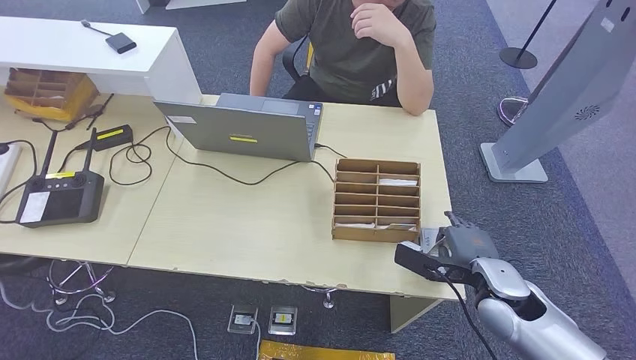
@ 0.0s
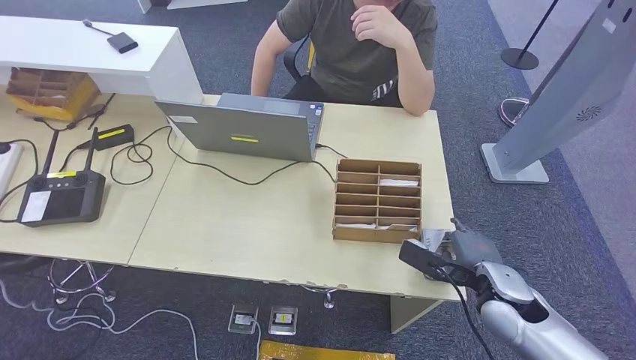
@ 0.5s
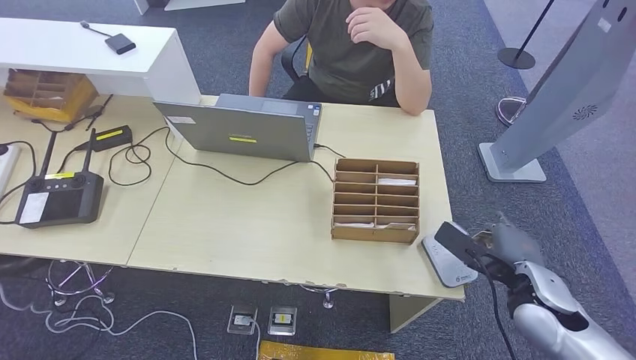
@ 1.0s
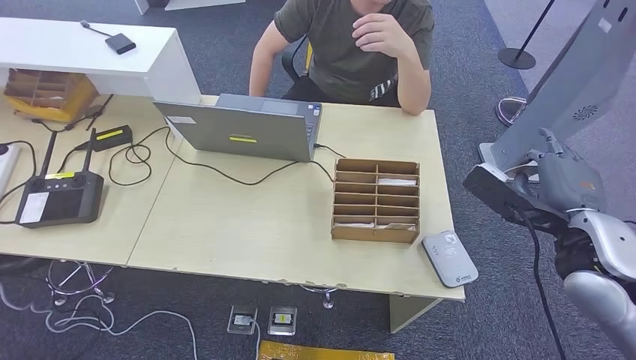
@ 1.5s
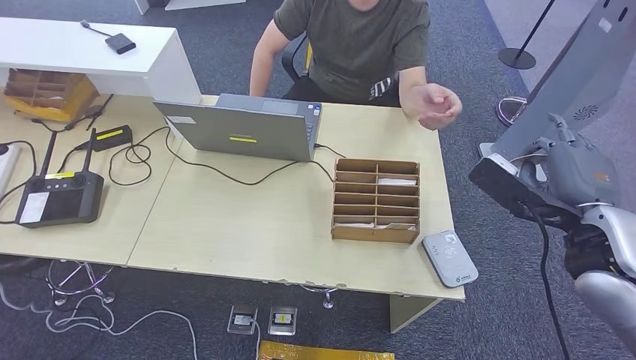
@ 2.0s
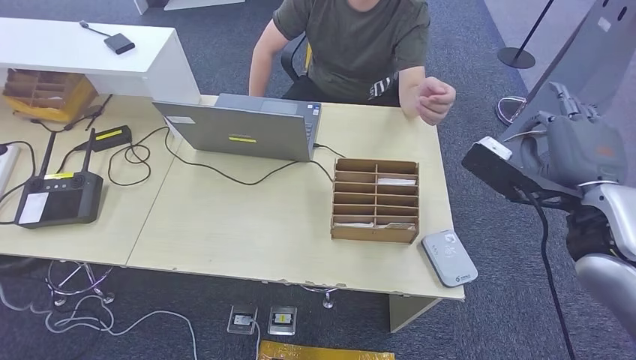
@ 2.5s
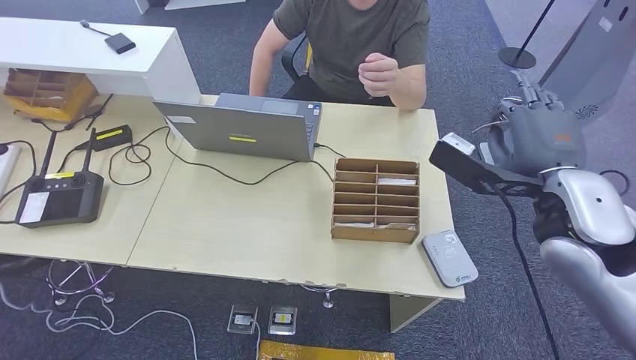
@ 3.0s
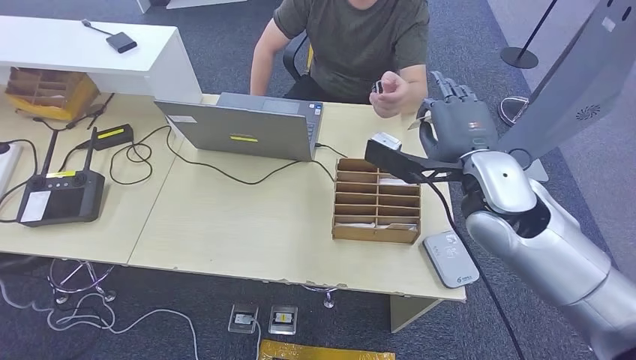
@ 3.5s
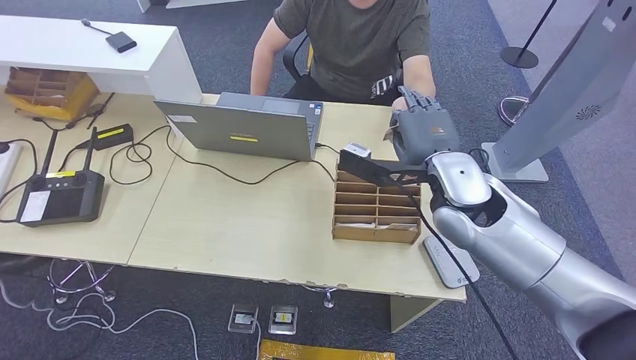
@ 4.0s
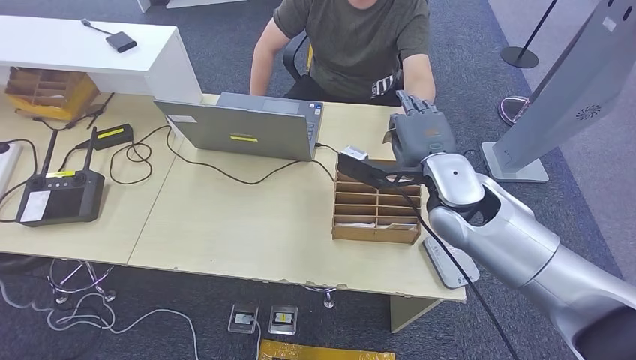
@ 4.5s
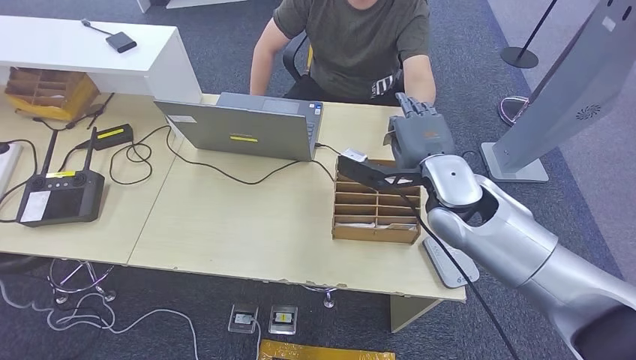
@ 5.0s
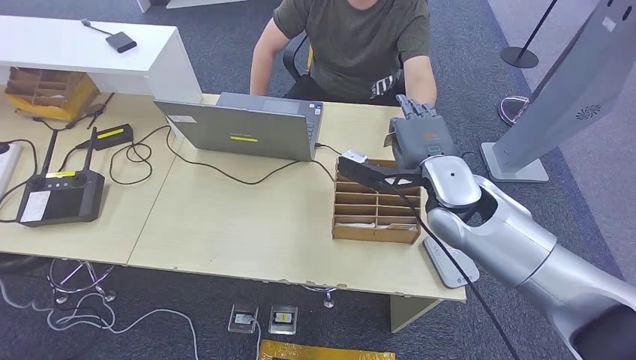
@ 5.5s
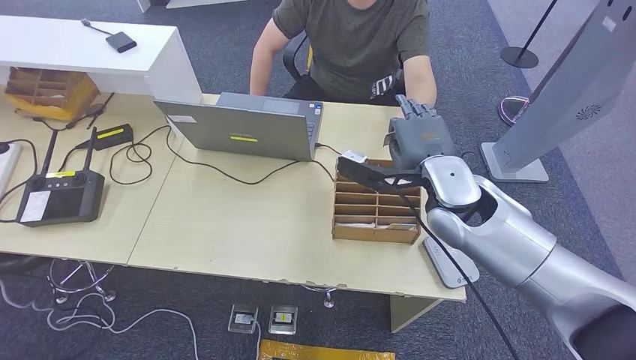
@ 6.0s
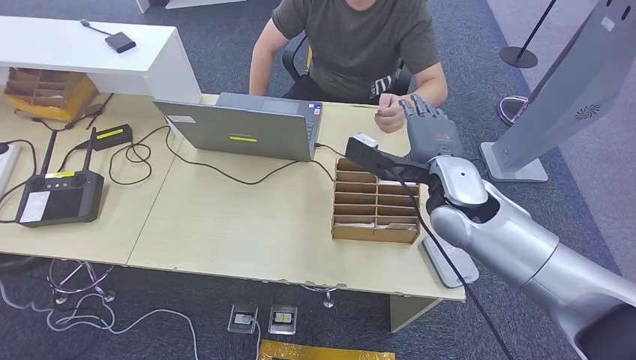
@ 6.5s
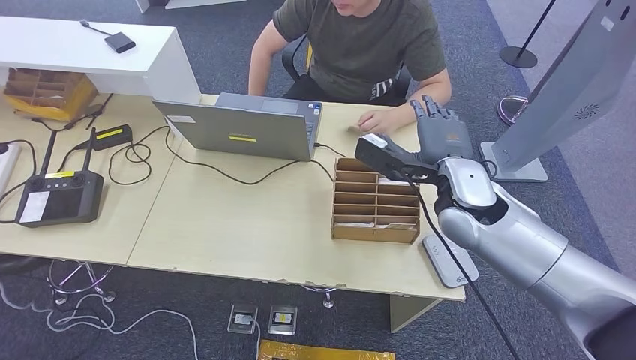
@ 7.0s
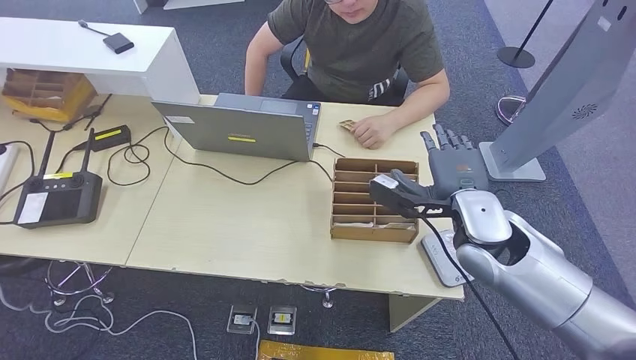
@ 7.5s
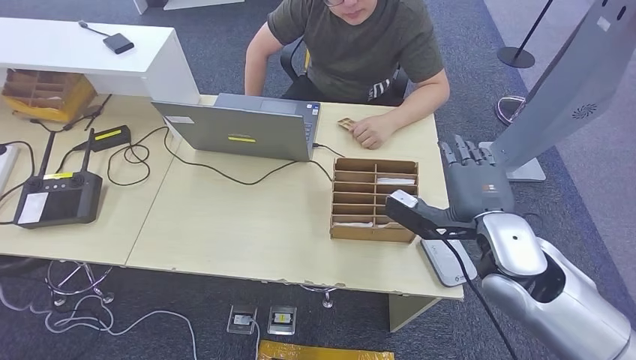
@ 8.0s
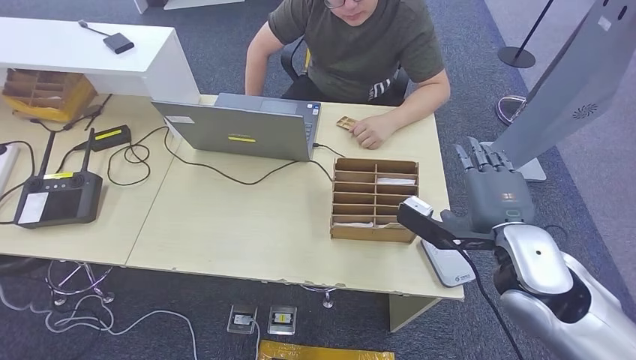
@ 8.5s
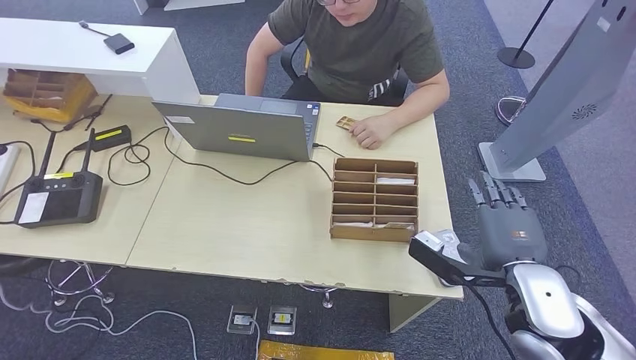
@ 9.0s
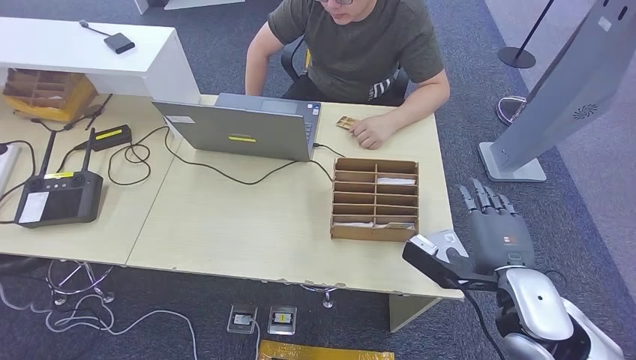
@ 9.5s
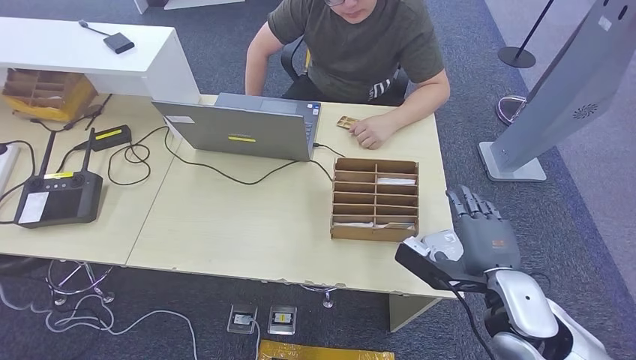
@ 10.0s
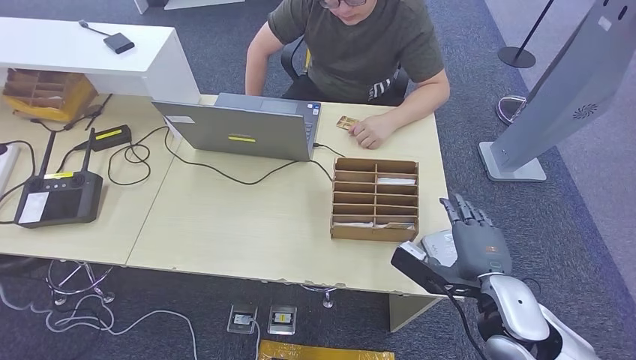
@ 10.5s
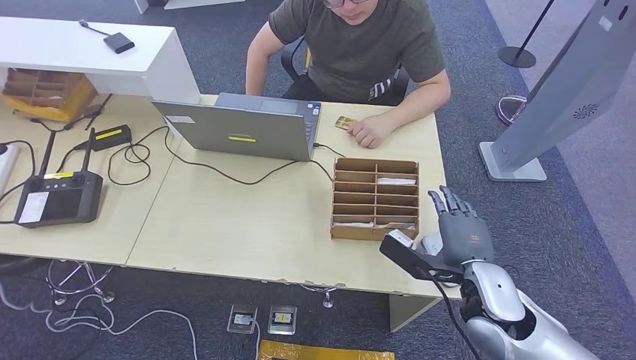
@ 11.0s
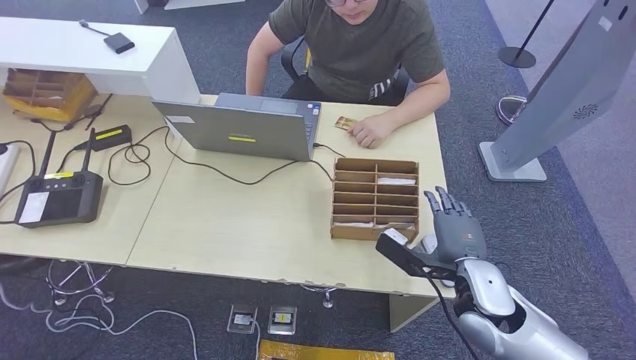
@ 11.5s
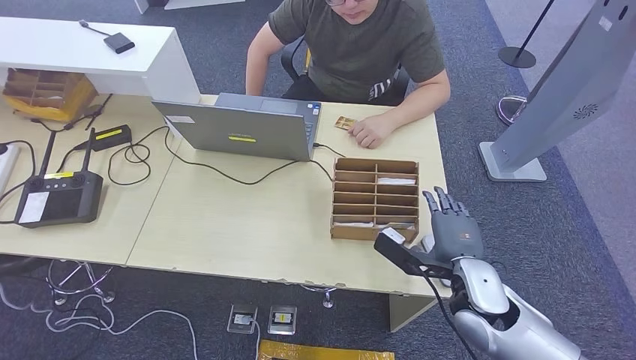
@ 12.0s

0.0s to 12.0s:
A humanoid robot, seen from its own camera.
Step, 0.0s to 7.0s: Hand the ID card to the person.
0.0s to 2.0s: The right hand goes about 15 cm upward.
2.0s to 4.0s: The right hand is displaced to the left and forward by roughly 20 cm.
4.0s to 6.0s: The hands move only a little.
6.0s to 8.0s: The right hand travels to the right and backward by some 10 cm.
8.0s to 10.0s: The right hand heads downward and backward, covering some 10 cm.
10.0s to 12.0s: The right hand ends up roughly 5 cm from where it was.

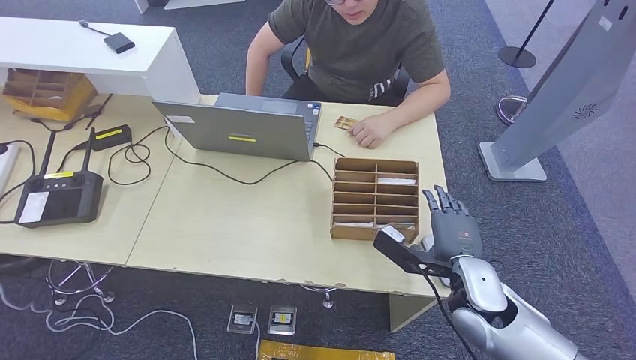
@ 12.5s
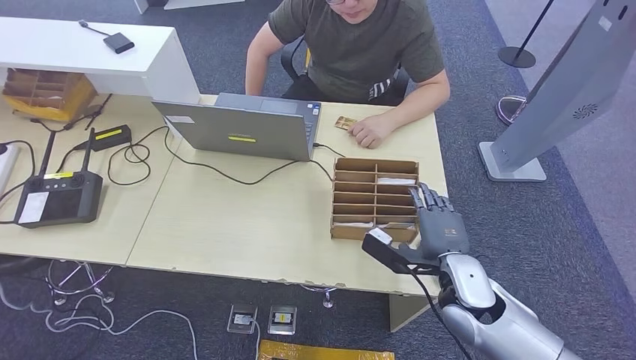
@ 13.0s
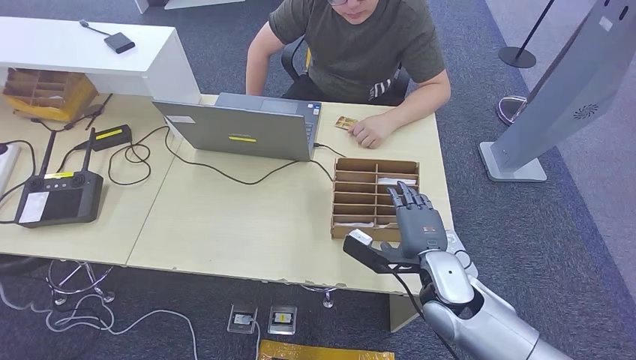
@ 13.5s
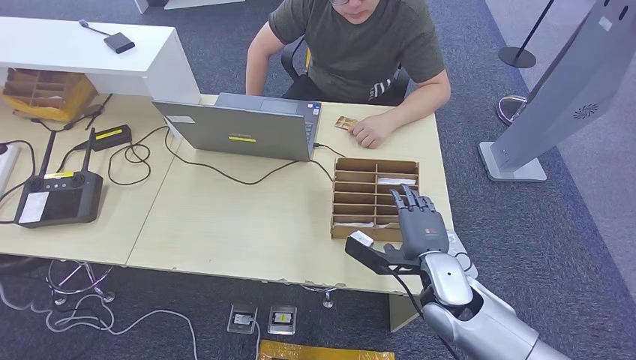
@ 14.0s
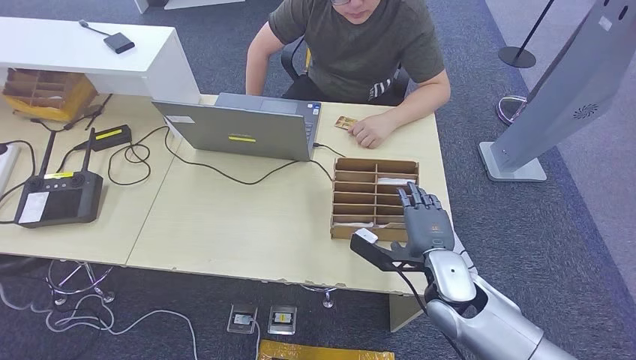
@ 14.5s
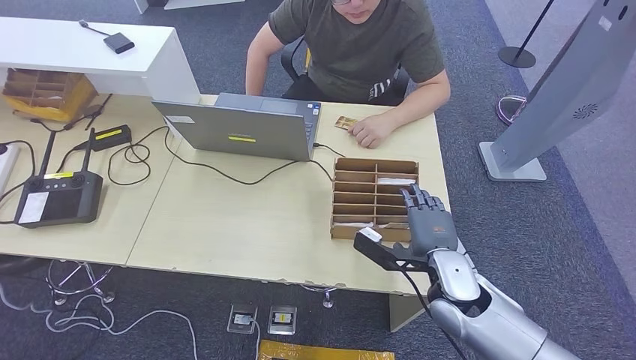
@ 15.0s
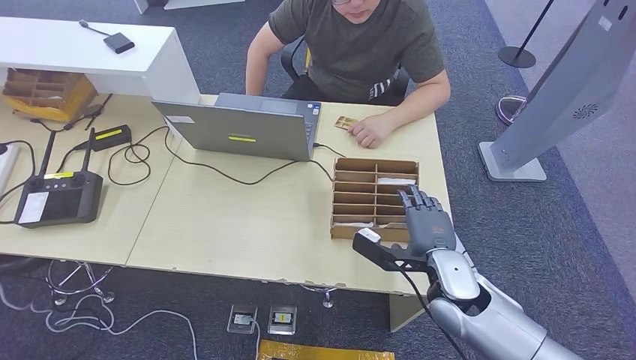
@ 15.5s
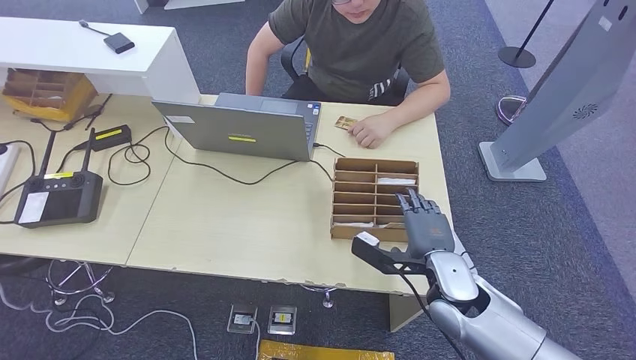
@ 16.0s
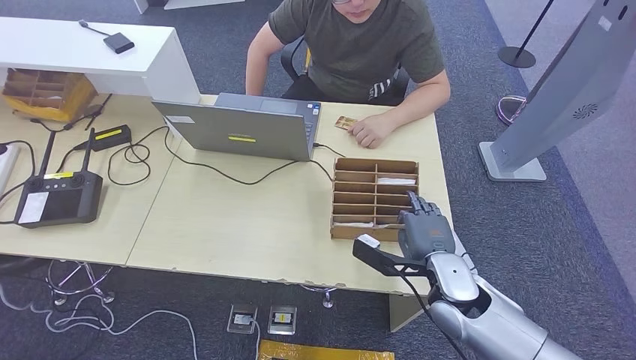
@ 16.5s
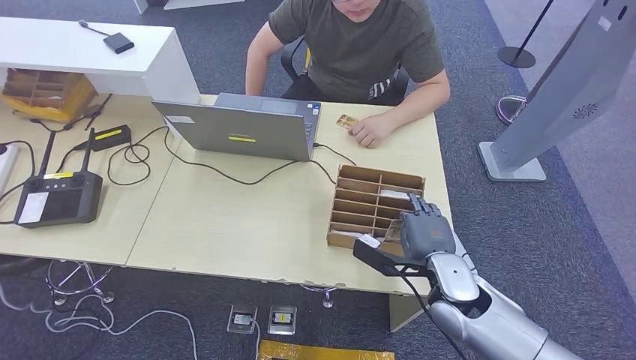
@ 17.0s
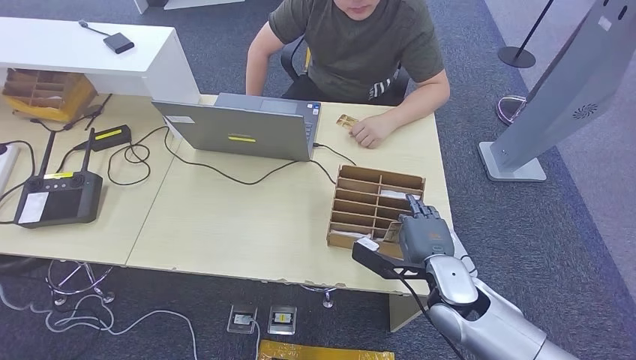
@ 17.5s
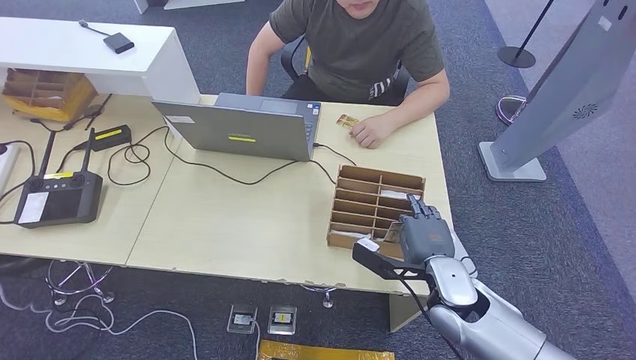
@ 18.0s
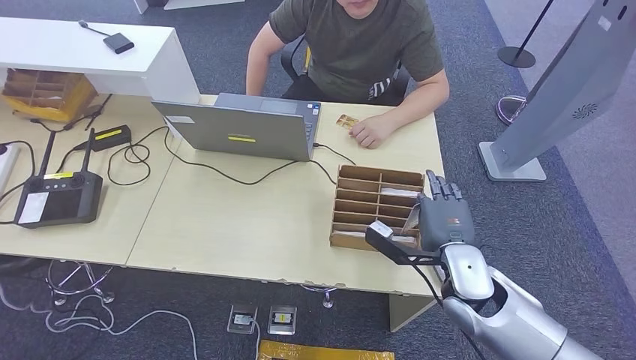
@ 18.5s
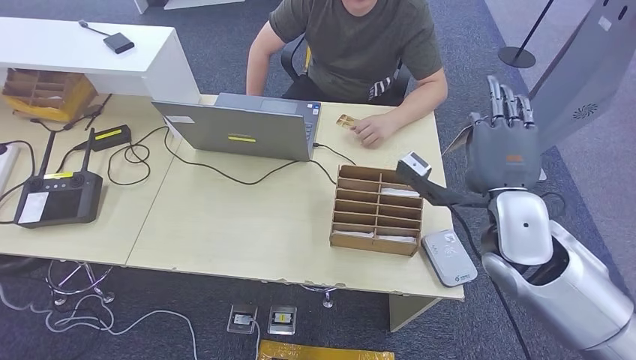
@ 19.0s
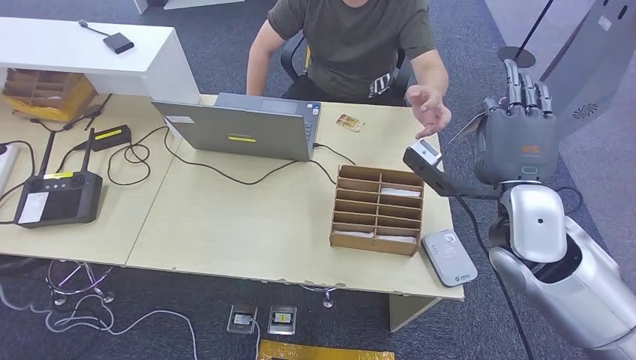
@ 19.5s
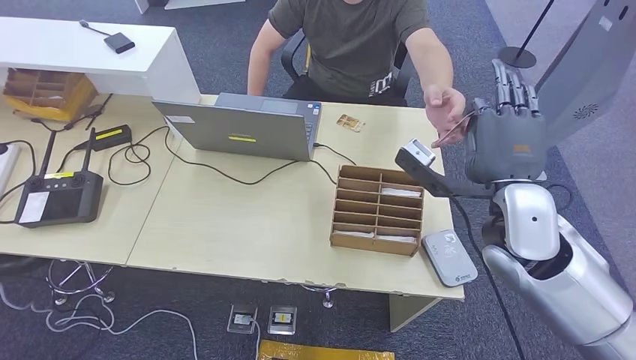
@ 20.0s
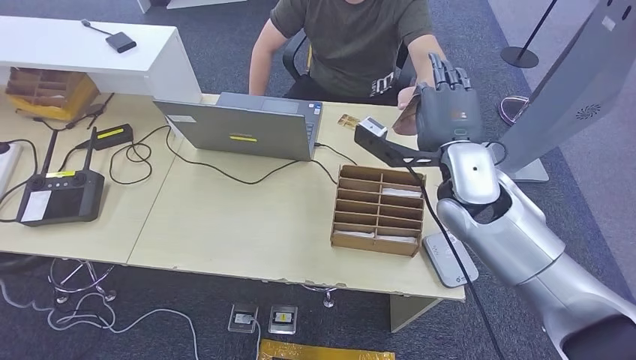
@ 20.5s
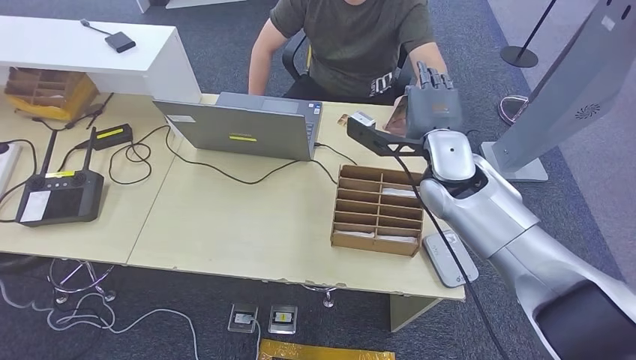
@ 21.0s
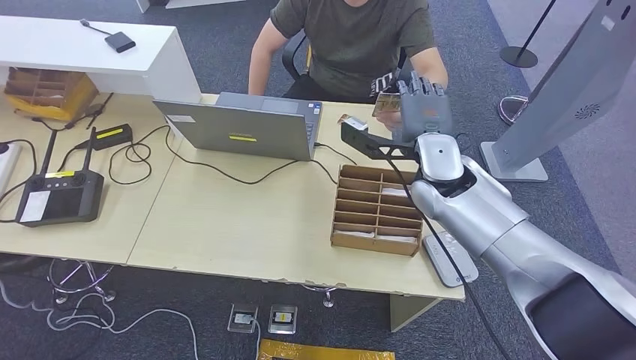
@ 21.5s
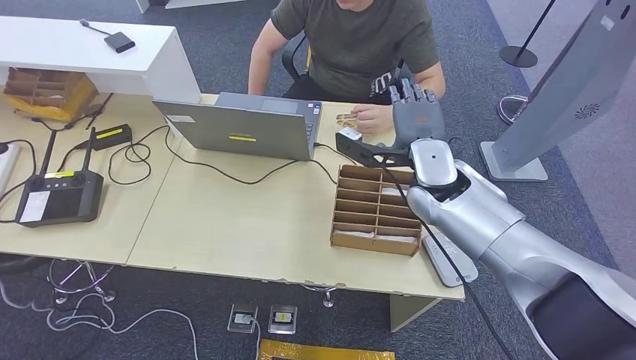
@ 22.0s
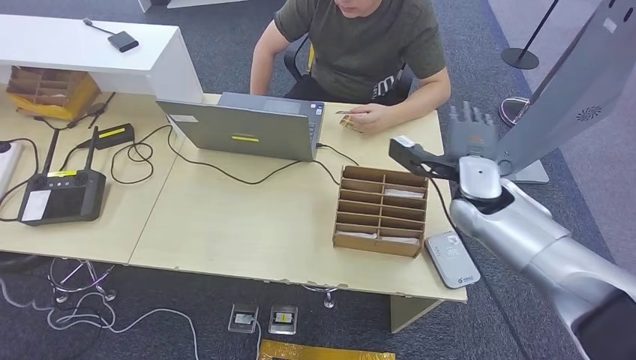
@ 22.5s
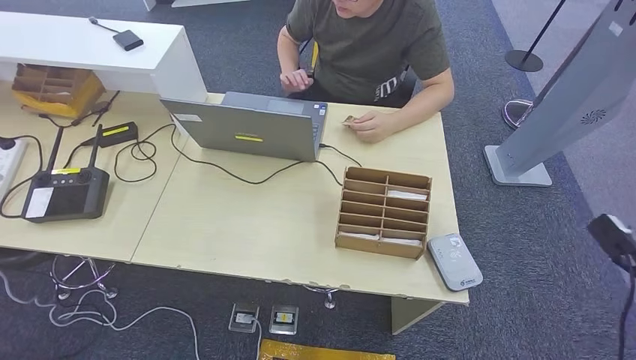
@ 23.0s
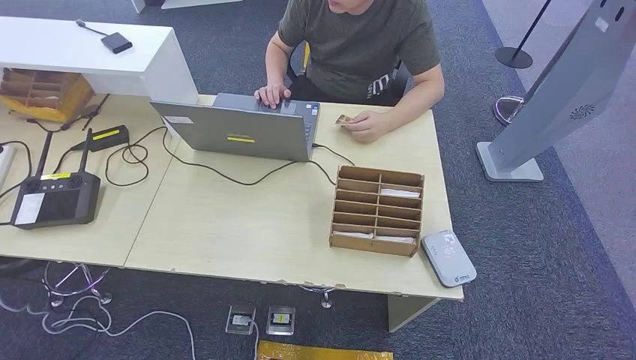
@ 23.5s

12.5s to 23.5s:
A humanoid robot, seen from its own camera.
Step, 12.5s to 18.0s: Pick up the room key from the key card box.
Step, 18.5s to 23.5s: Hand the room key to the person.
12.5s to 14.5s: The hands make only small movements.
14.5s to 16.0s: Both hands stay put.
16.0s to 18.0s: Both hands stay put.
18.0s to 20.0s: The right hand goes roughly 15 cm upward.
20.0s to 21.5s: The right hand moves to the left and forward, approximately 15 cm.
